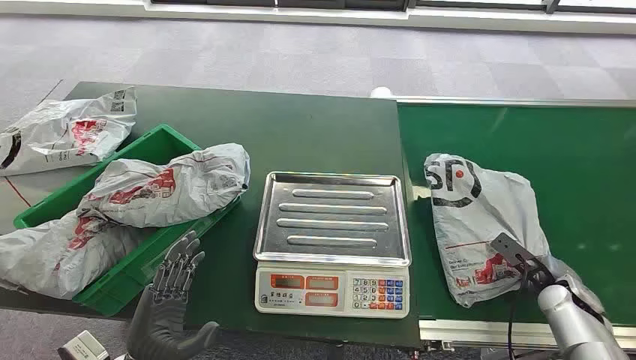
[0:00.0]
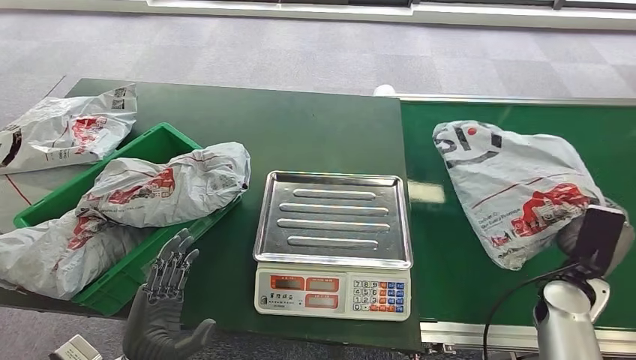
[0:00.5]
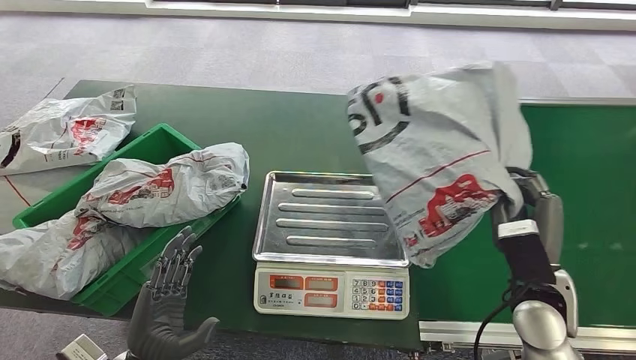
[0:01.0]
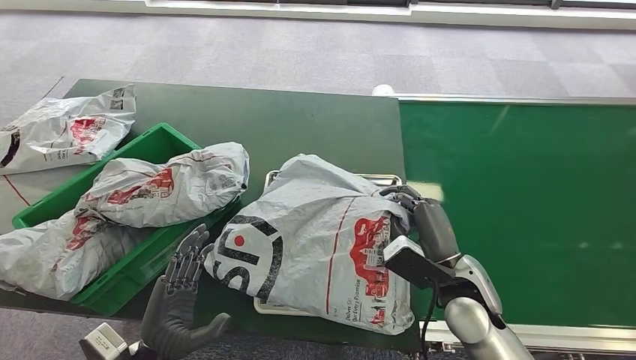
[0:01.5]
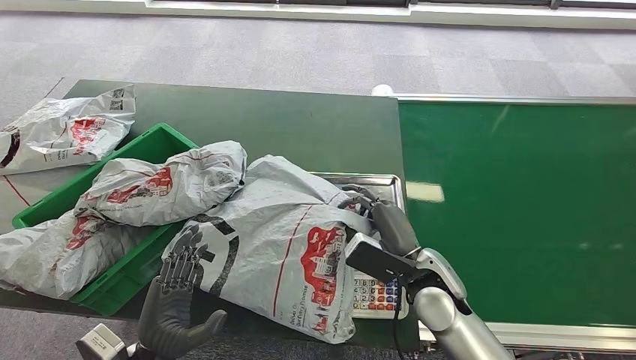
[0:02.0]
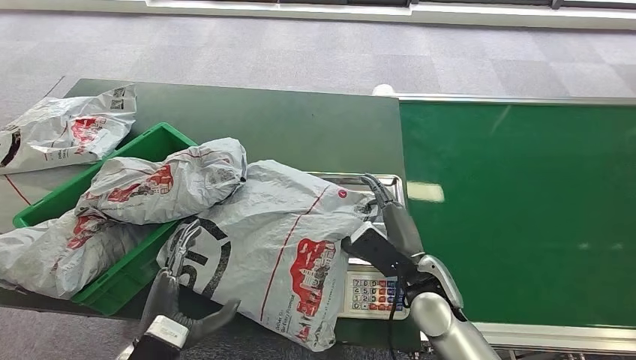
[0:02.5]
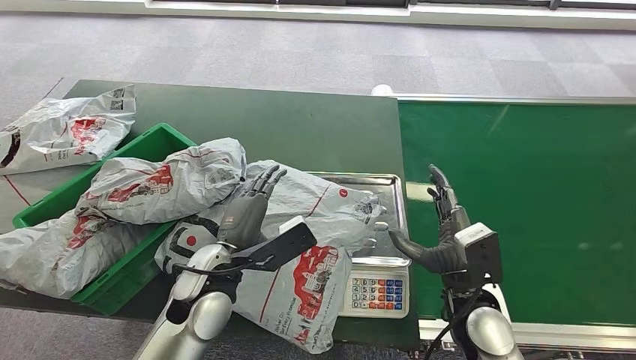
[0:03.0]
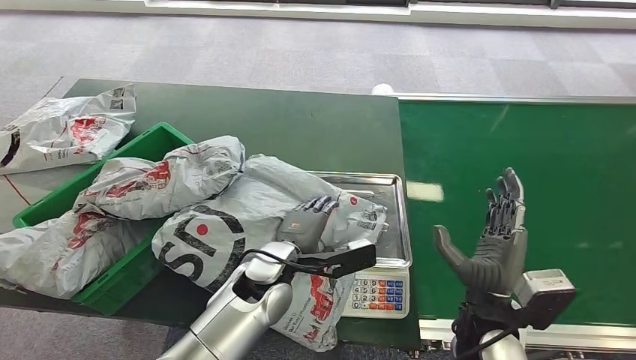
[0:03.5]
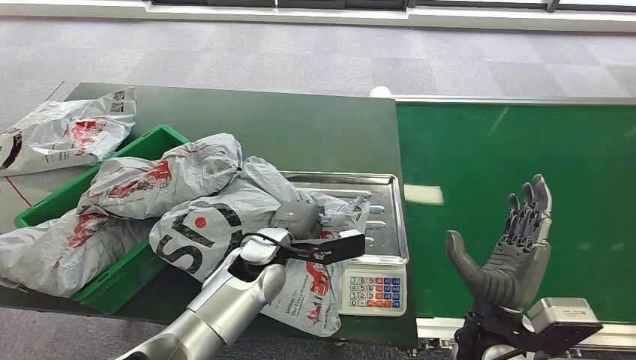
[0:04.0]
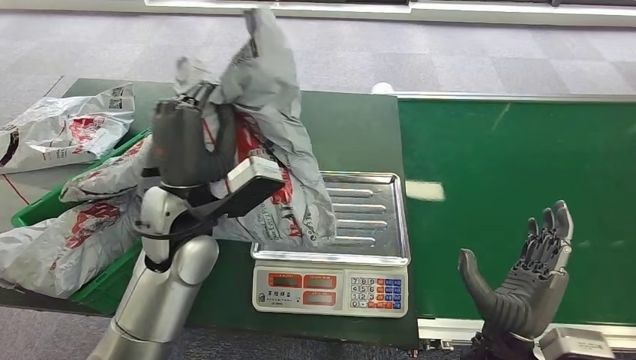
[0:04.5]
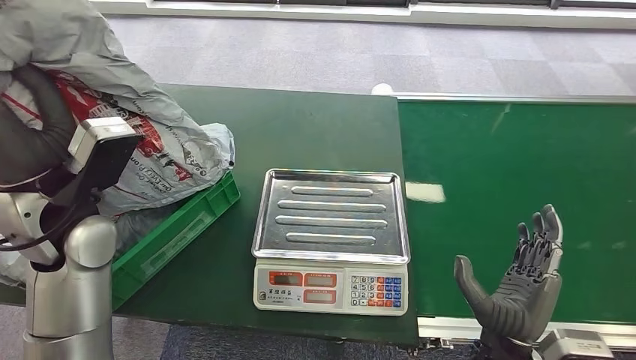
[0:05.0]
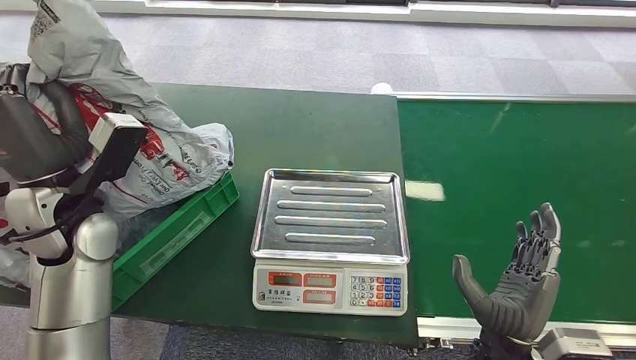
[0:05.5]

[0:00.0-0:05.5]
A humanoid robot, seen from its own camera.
Step, 0:00.0 to 0:00.5: Pick up the package from the conveyor belt.
Step, 0:01.0 to 0:02.0: Place the package onto the inbound machine.
Step, 0:04.0 to 0:04.5: Pick up the package from the inbound machine.
Step, 0:05.0 to 0:05.5: Place the package into the parcel locker.

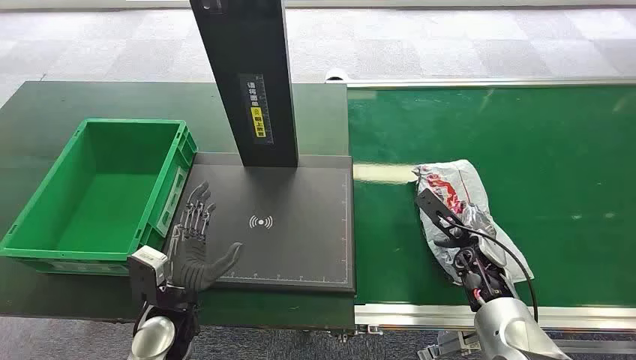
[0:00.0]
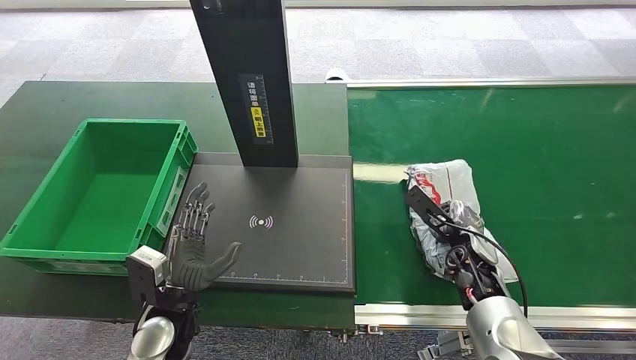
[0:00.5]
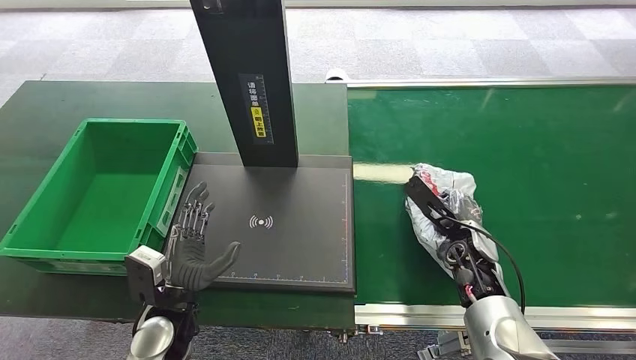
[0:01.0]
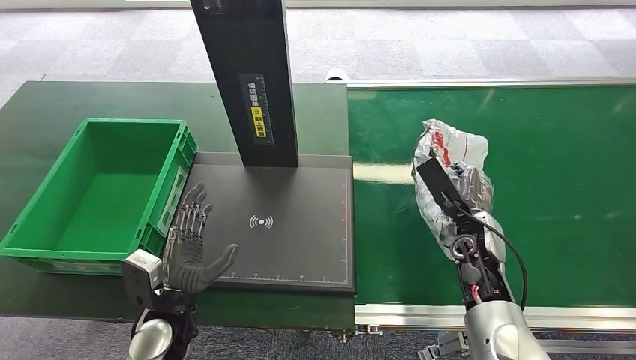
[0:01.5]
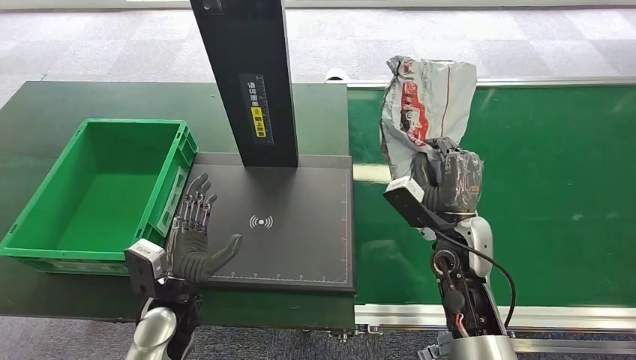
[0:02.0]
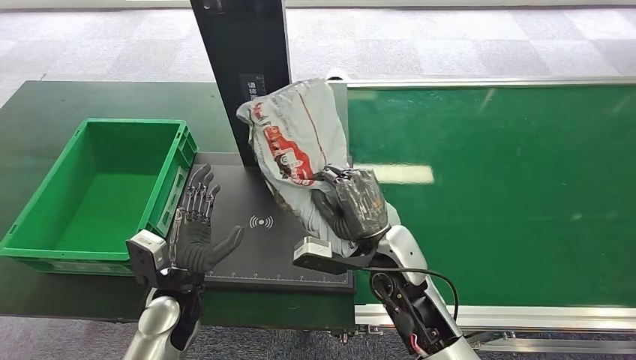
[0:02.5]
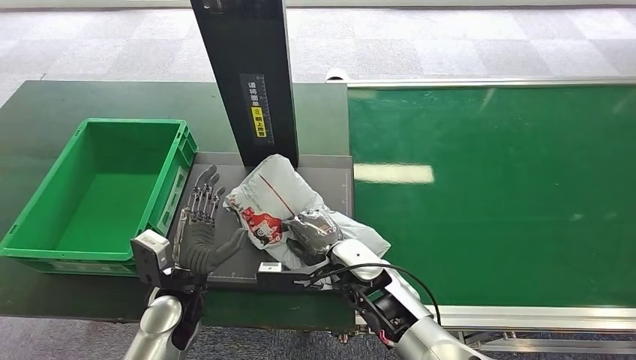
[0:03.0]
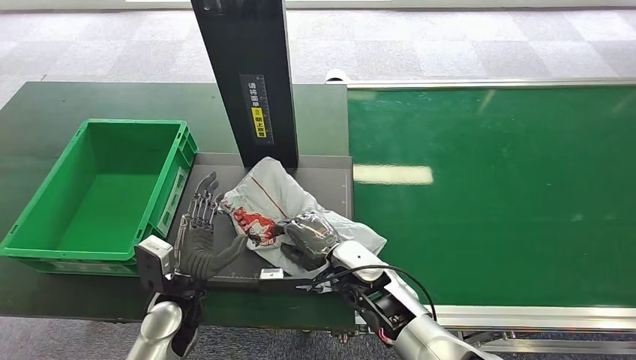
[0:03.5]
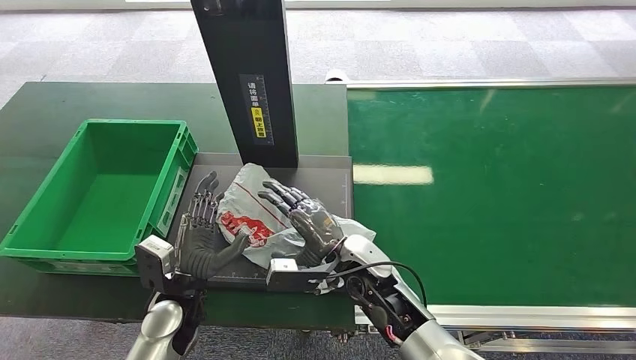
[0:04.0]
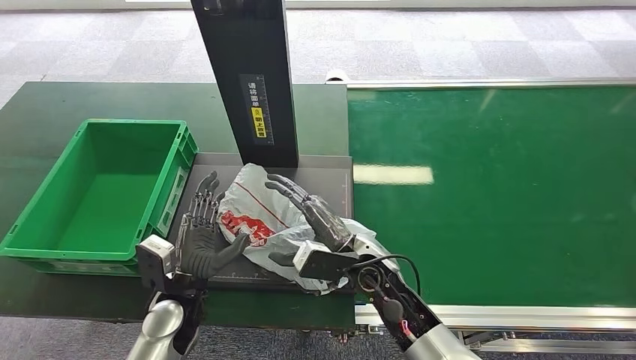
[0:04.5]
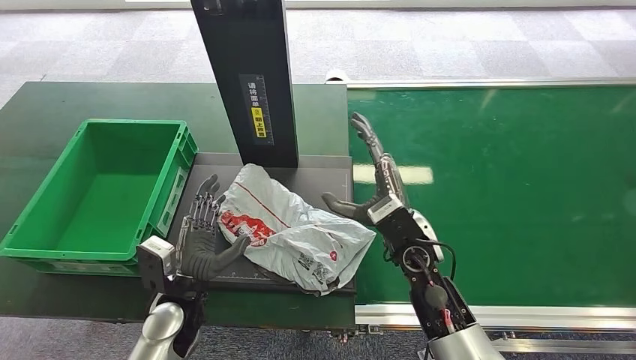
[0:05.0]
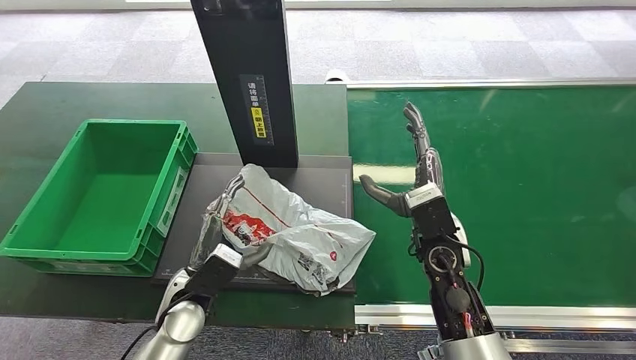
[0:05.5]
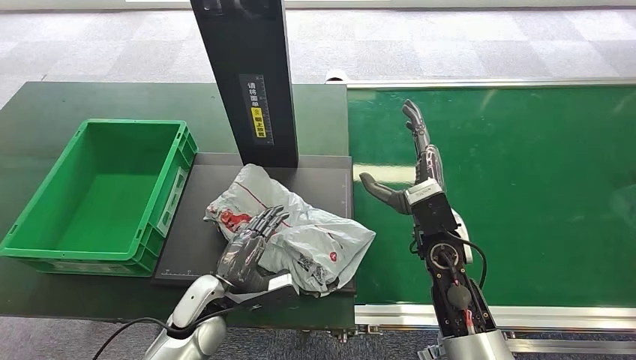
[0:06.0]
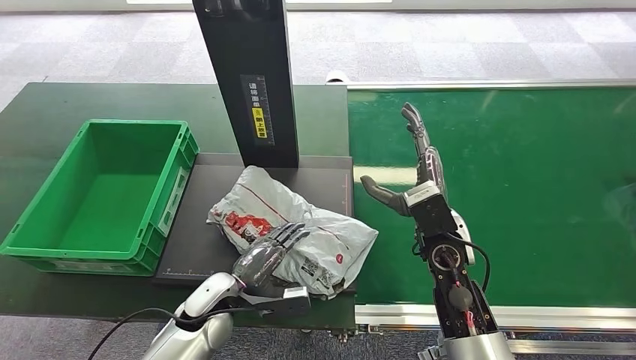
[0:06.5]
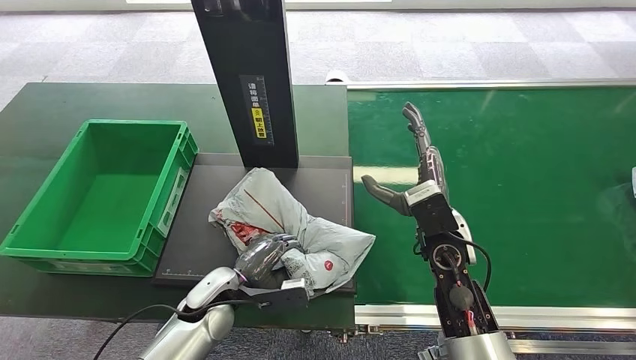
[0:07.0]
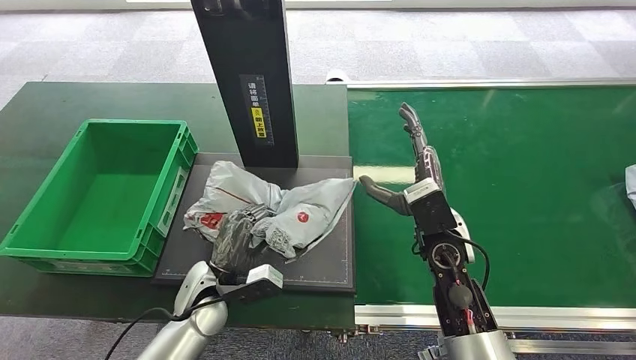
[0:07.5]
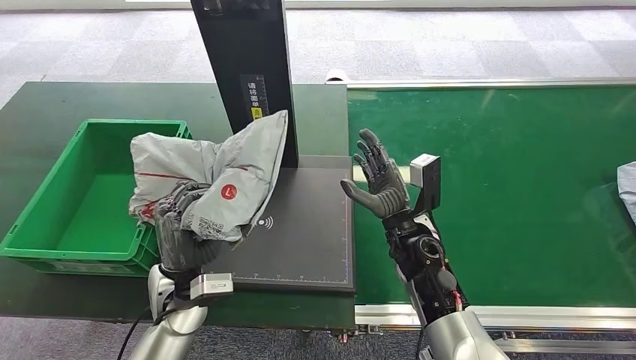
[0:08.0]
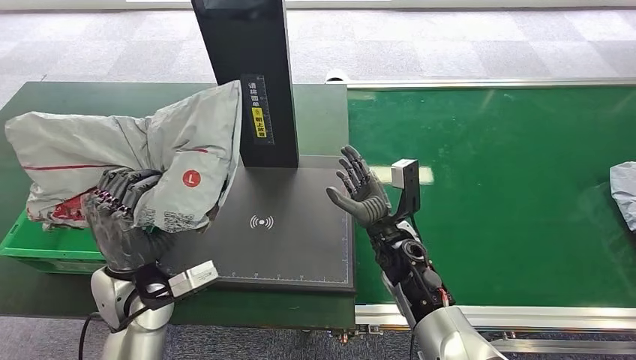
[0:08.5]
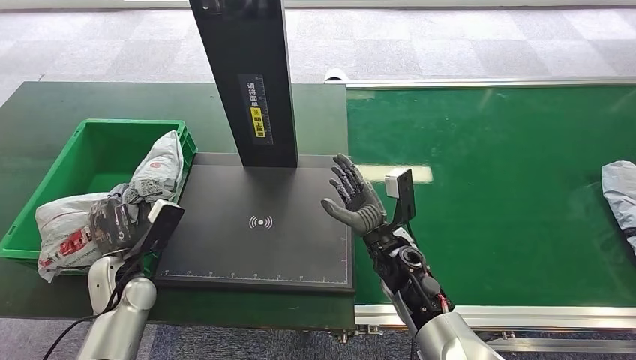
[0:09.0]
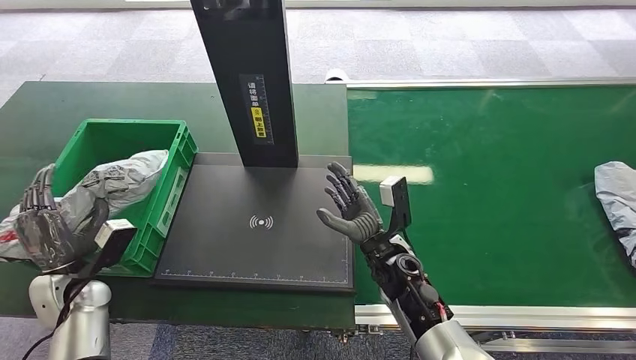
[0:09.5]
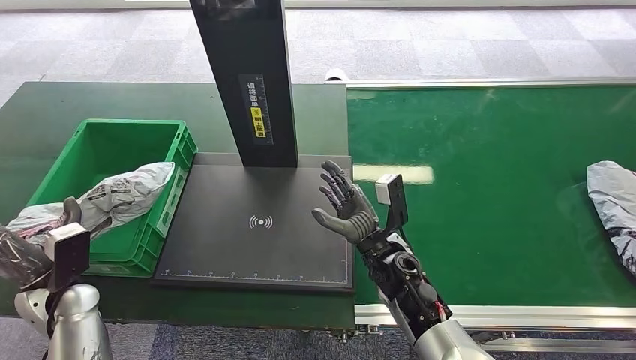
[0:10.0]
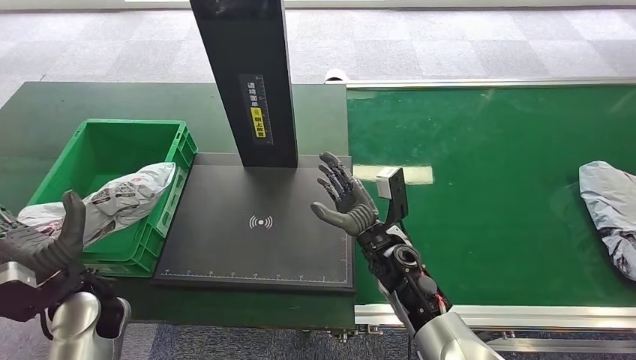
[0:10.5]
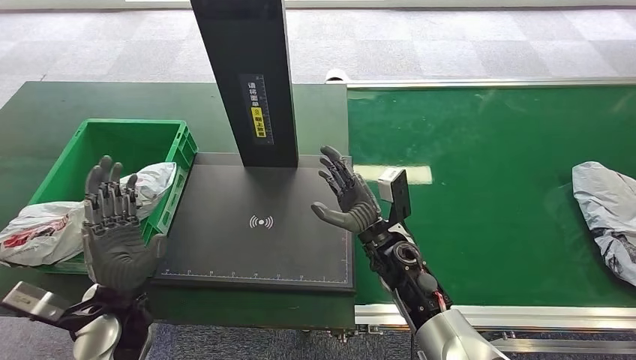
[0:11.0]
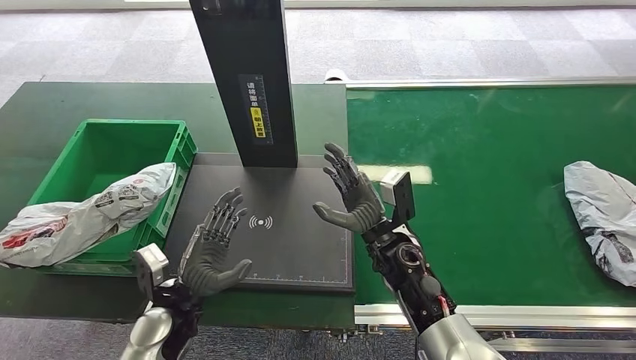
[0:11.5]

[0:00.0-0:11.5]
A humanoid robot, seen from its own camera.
Step, 0:00.0 to 0:01.5: Pick up the package from the conveyor belt.
Step, 0:02.0 to 0:05.0: Place the package onto the inbound machine.
Step, 0:05.5 to 0:08.5: Pick up the package from the inbound machine.
Step, 0:09.0 to 0:11.5: Place the package into the parcel locker.
0:02.0 to 0:04.0: The right hand heads to the left, covering roughly 15 cm.
0:04.0 to 0:06.0: The right hand travels to the right and upward by approximately 10 cm.
0:06.0 to 0:07.5: The hands stay close to where they were, moving slightly.
0:09.5 to 0:11.5: The left hand is displaced to the right by some 20 cm.
